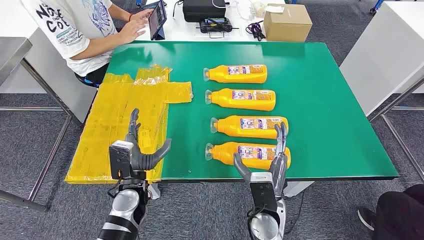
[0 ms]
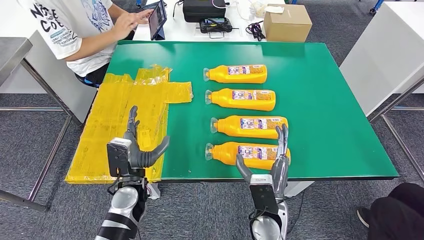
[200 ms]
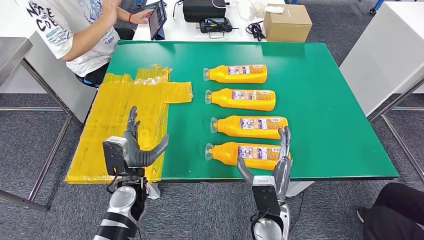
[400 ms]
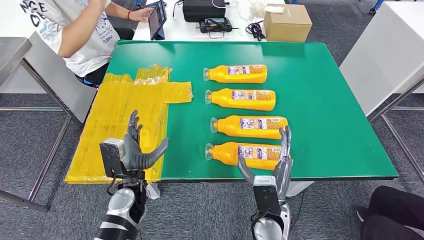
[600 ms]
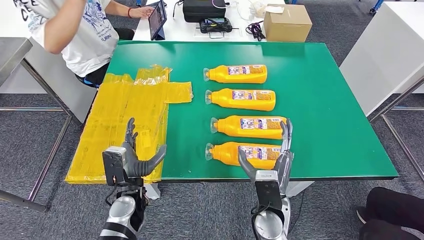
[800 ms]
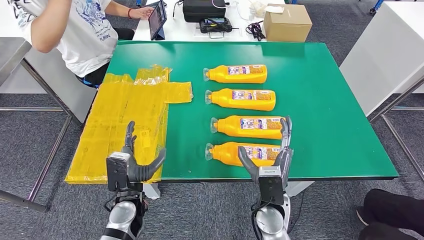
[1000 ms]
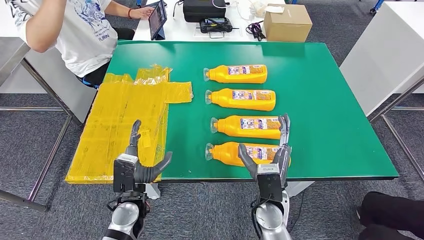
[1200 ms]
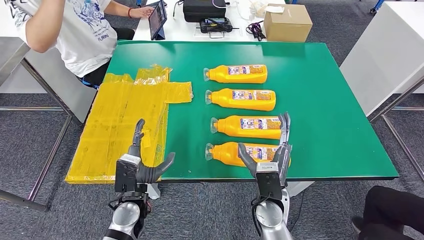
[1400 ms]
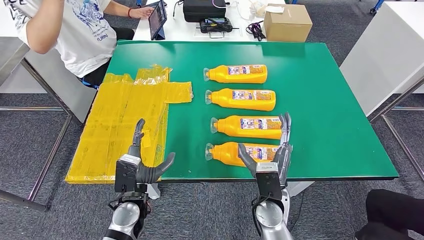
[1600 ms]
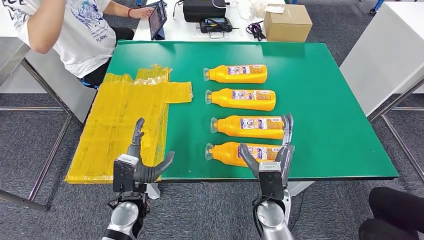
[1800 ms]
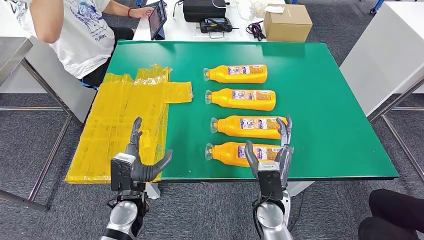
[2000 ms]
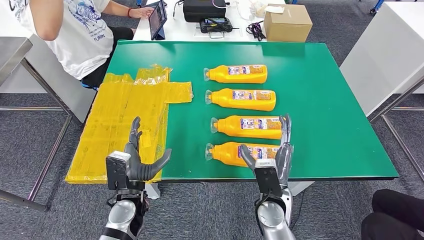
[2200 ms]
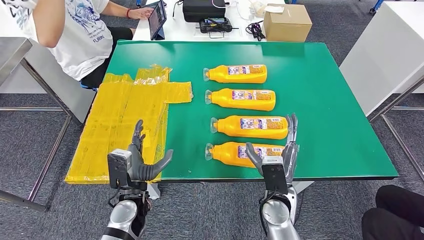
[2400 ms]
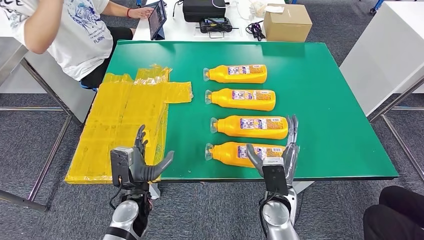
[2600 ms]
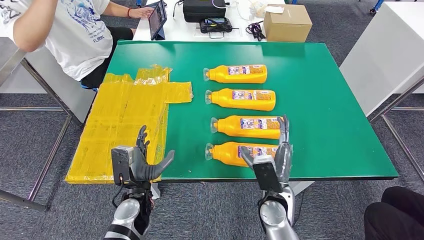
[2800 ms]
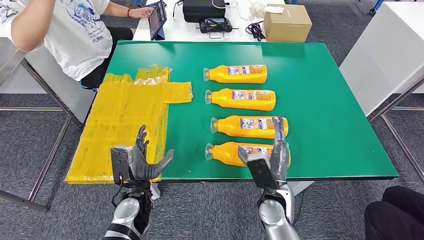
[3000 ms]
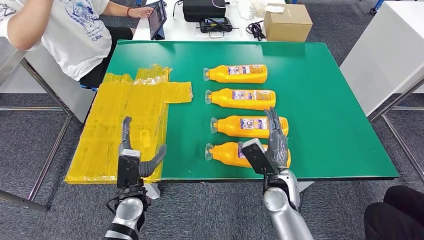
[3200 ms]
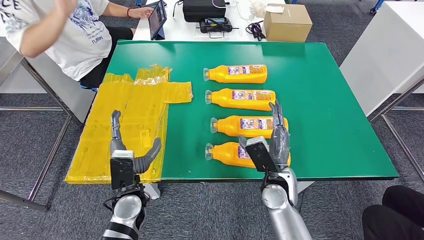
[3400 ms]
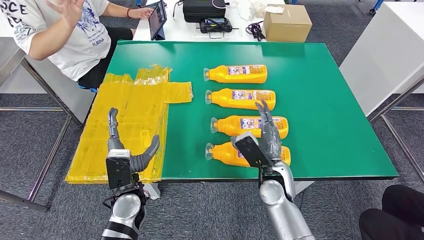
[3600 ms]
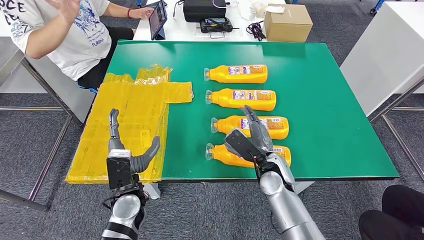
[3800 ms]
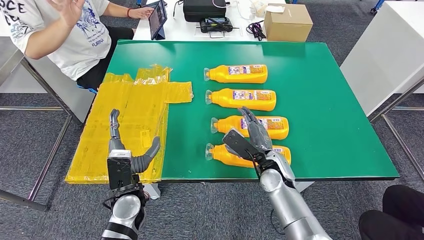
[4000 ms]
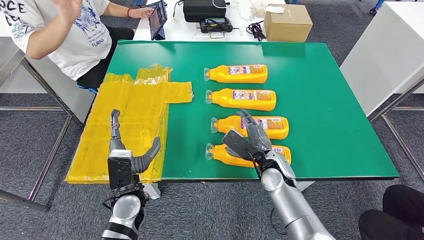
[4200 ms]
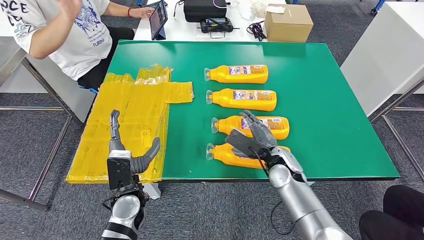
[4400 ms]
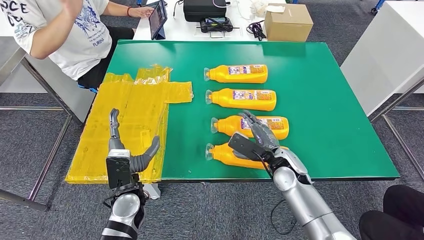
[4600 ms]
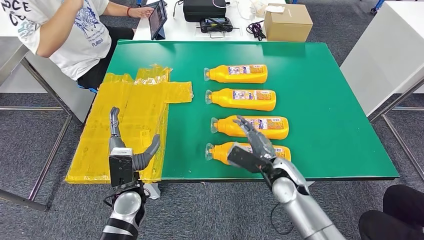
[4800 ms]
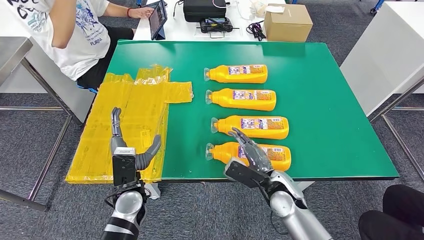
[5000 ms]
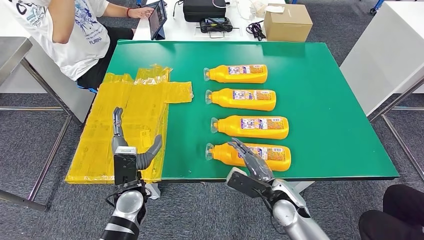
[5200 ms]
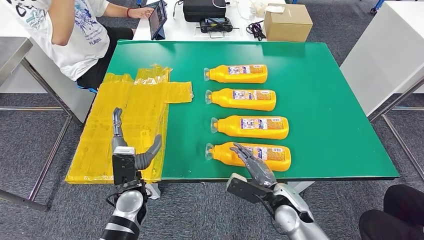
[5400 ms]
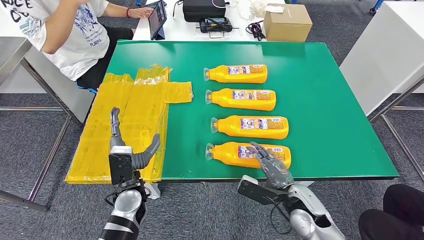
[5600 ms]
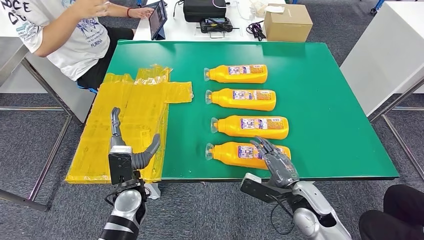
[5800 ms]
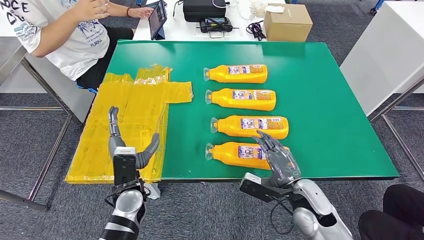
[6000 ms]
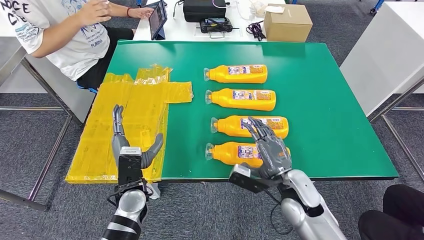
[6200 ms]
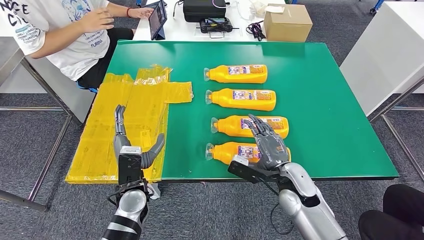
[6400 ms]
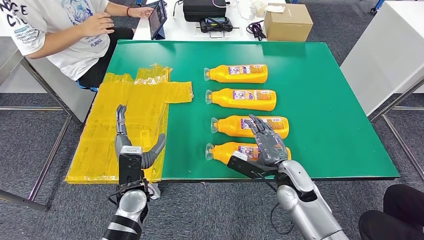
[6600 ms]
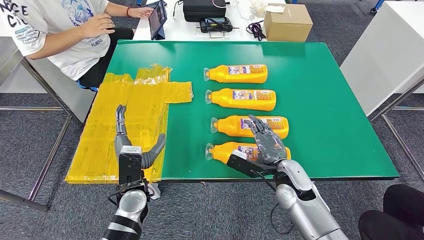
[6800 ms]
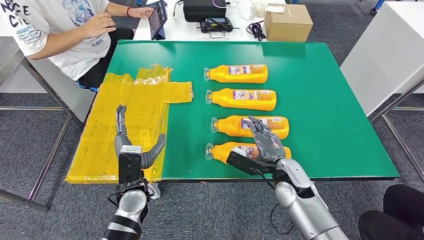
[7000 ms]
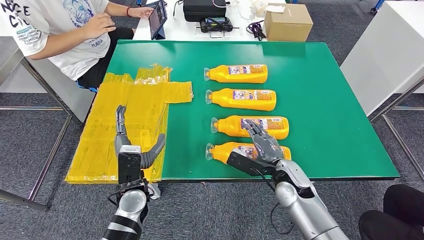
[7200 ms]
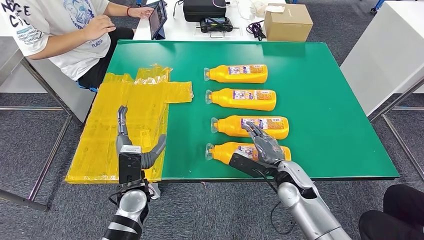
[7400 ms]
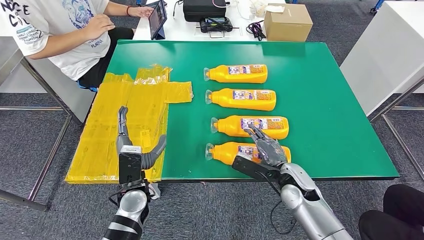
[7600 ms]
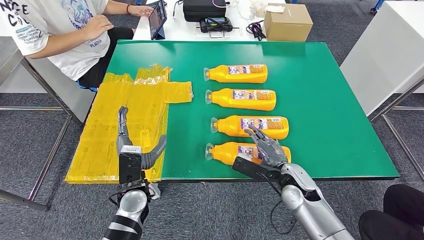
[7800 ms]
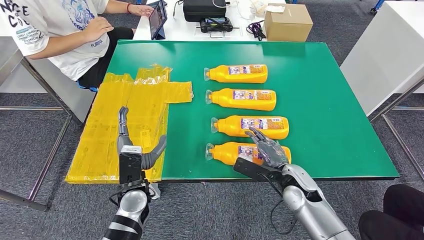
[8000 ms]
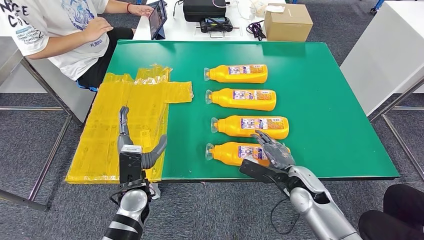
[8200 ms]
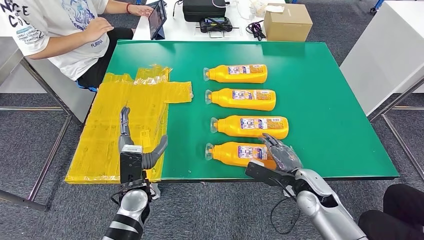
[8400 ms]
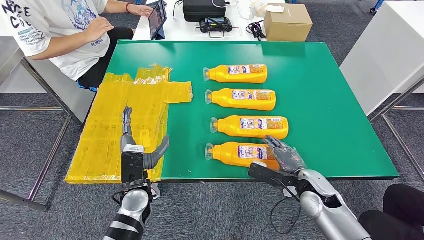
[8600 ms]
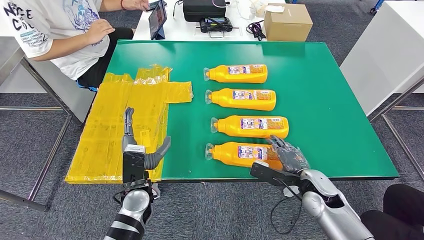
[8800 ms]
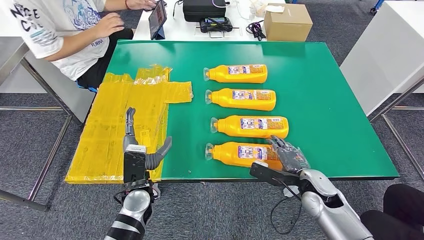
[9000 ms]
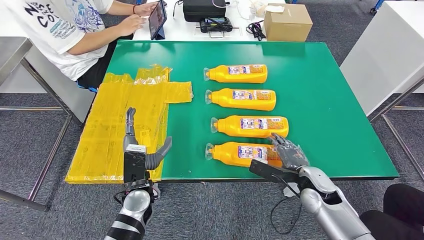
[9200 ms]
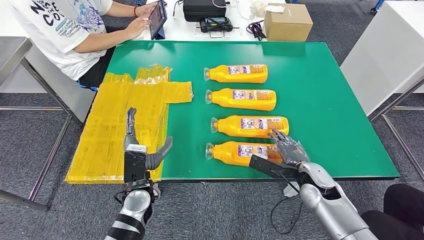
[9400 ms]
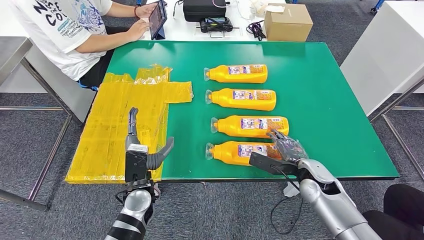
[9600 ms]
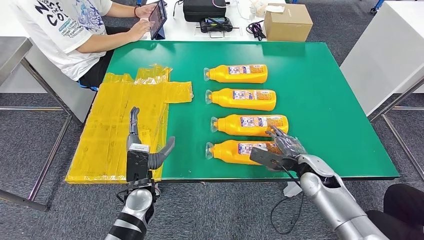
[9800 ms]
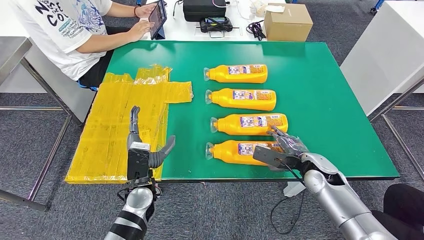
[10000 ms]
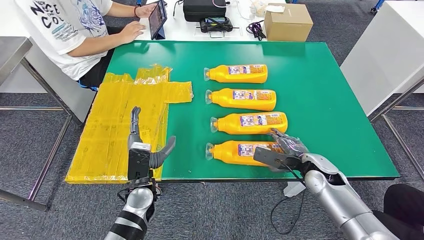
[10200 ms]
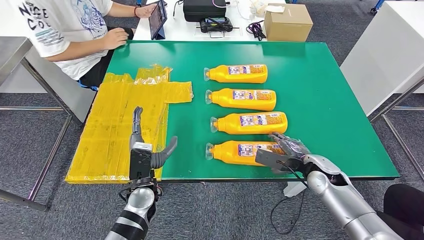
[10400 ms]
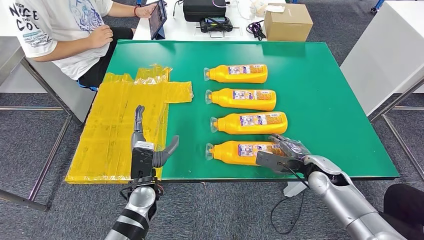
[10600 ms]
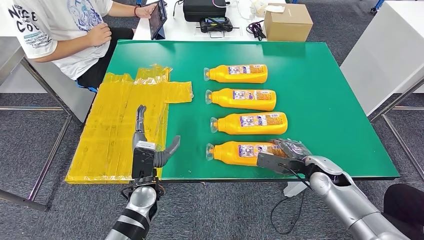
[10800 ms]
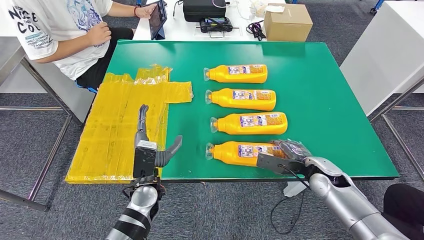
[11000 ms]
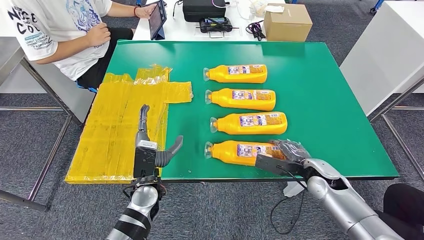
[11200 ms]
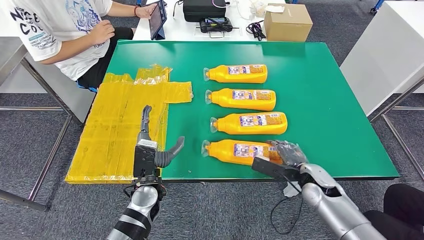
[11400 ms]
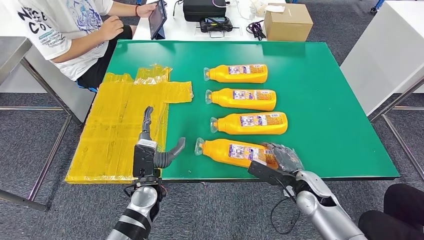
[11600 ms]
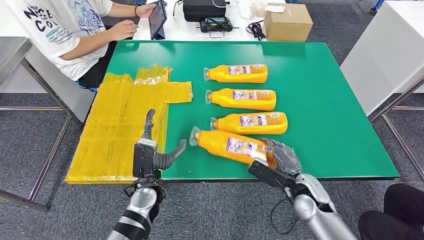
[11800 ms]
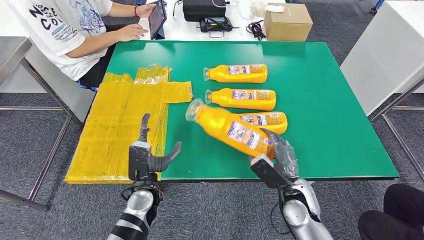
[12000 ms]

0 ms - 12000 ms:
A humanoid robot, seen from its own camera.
1600 ms - 3000 ms: The hands move only a little.
3000 ms - 4400 ms: The right hand is displaced forward by roughly 10 cm.
4400 ms - 6000 ms: The right hand travels backward by some 10 cm.
6000 ms - 7600 ms: The right hand shifts some 5 cm forward.
7600 ms - 9000 ms: The right hand moves to the right, approximately 5 cm.
9000 ms - 10400 ms: The right hand changes place by roughly 5 cm.
10400 ms - 12000 ms: The right hand heads to the left and backward, covering about 10 cm.

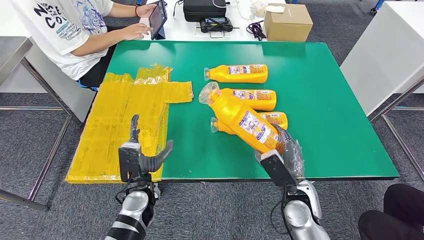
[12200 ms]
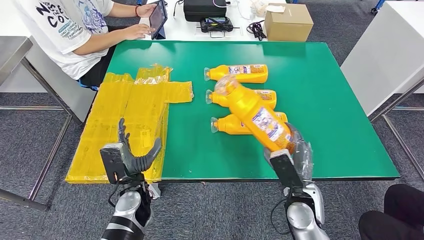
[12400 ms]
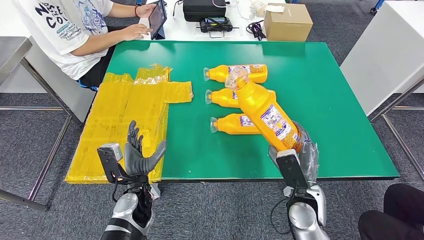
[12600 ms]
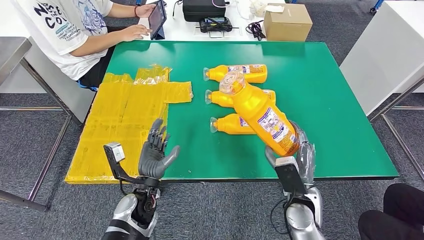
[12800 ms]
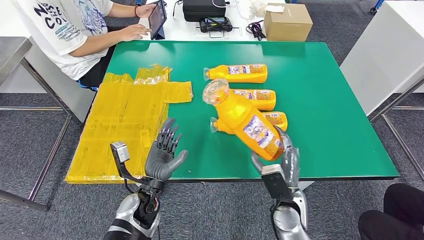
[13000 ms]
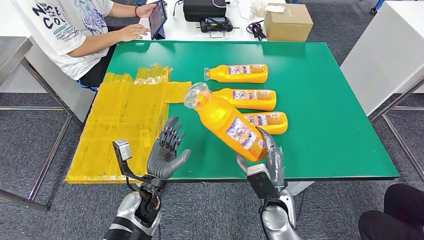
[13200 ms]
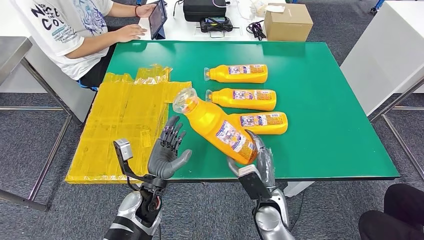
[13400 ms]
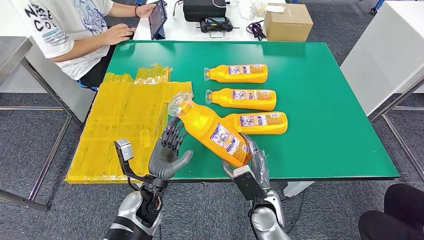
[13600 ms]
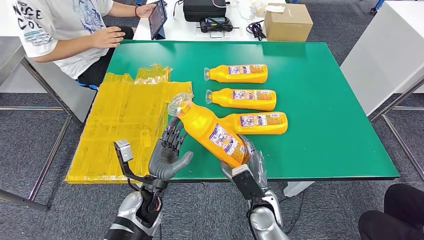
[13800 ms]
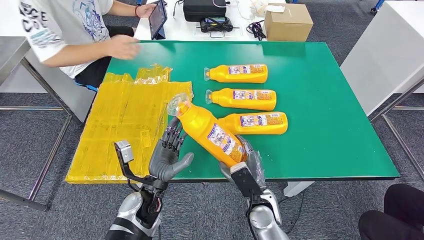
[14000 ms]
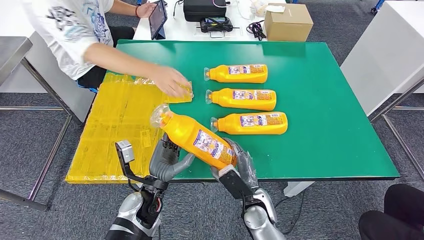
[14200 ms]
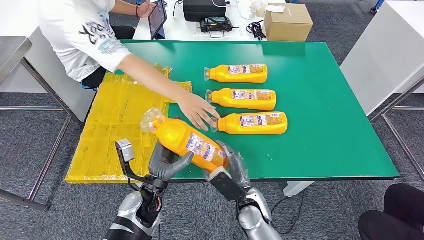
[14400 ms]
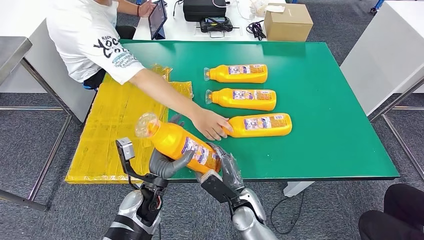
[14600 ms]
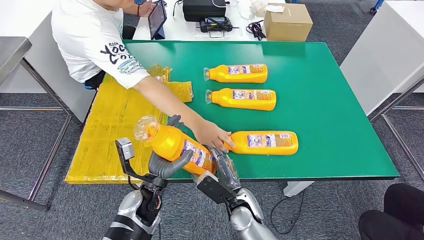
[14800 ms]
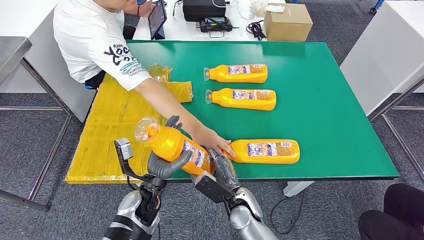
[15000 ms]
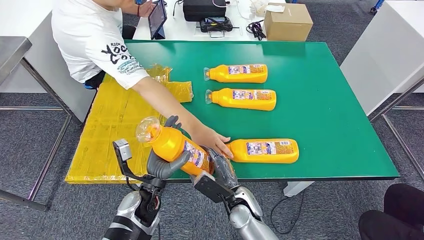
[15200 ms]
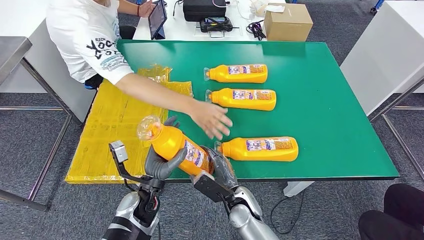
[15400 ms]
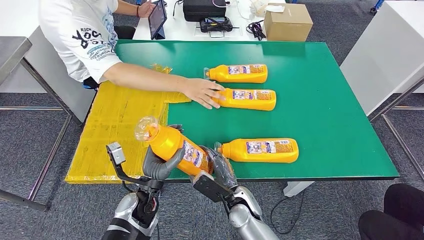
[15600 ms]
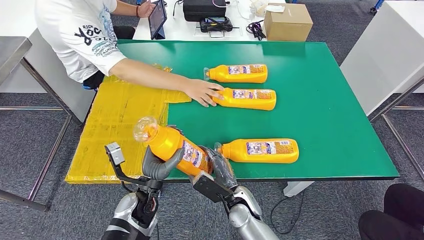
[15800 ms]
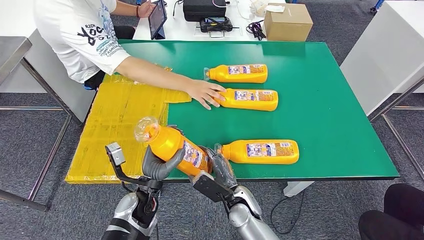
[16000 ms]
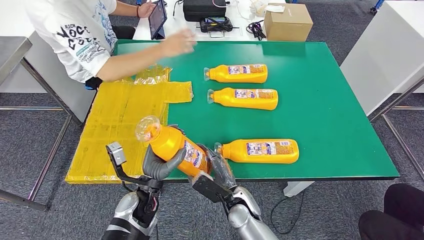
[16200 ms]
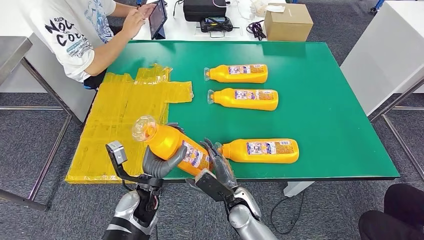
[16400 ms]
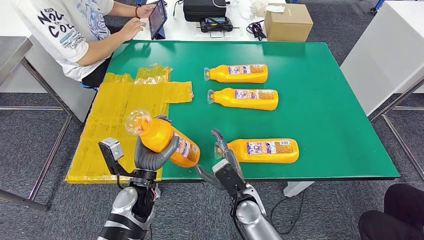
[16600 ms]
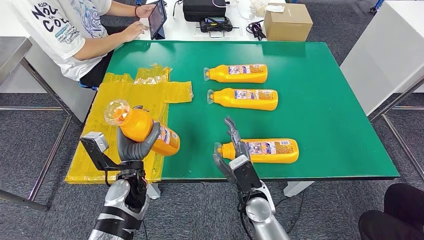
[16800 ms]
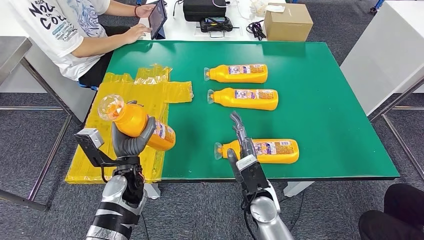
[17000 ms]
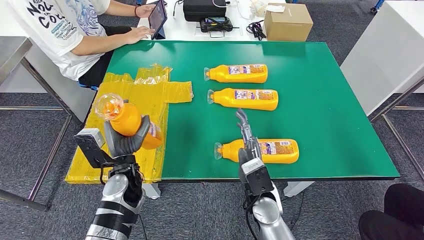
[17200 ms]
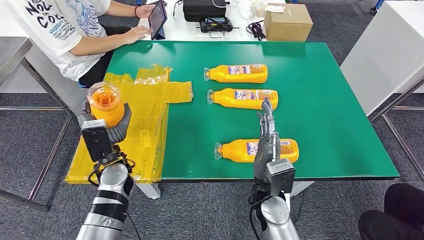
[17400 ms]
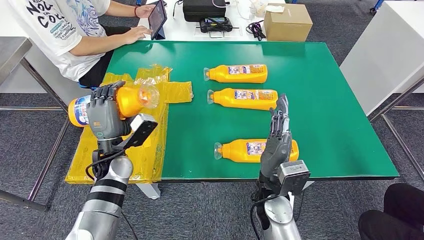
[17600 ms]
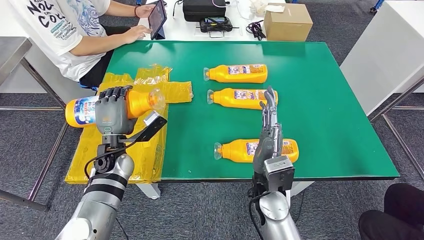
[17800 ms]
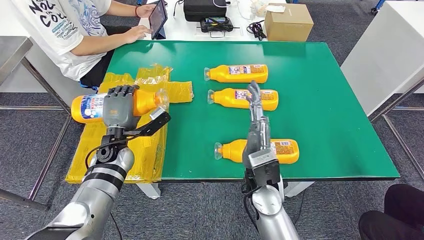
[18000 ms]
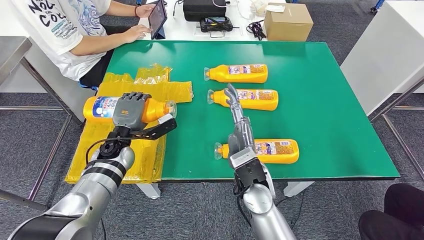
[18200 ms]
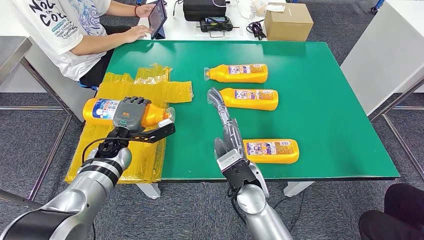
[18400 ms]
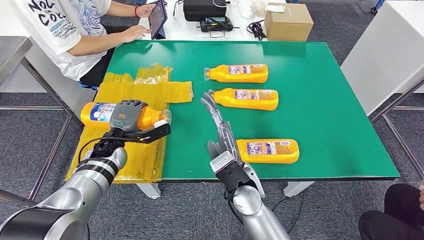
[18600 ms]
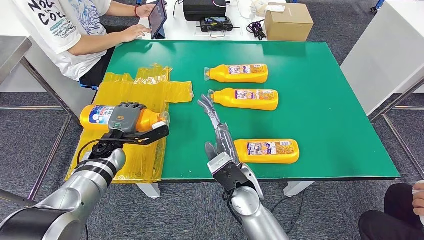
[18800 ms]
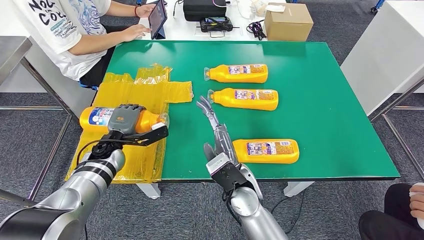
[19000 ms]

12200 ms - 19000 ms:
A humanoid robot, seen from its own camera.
Step, 12200 ms - 14200 ms: Take the bottle from the table.
12200 ms - 13600 ms: The right hand is displaced to the left by roughly 10 cm.
15000 ms - 16200 ms: The hands move only a little.
